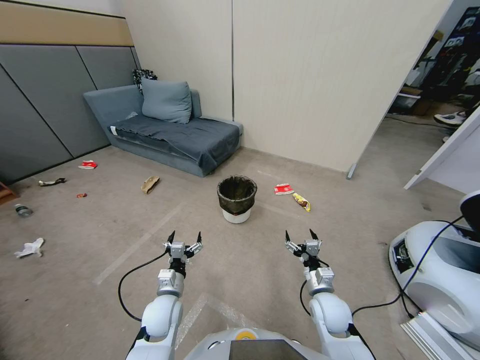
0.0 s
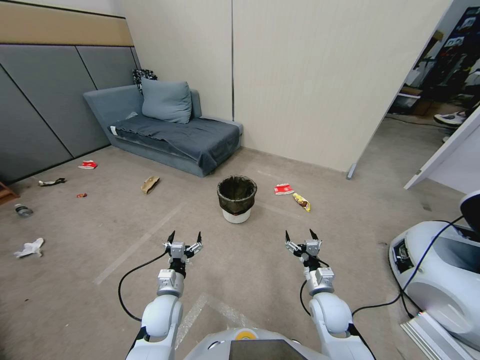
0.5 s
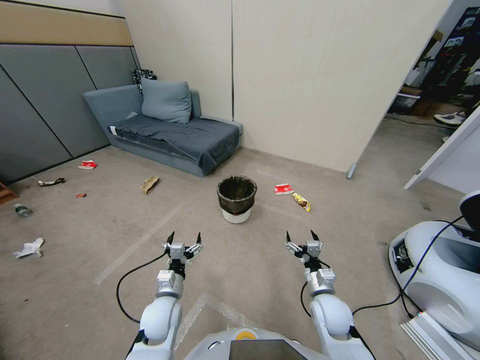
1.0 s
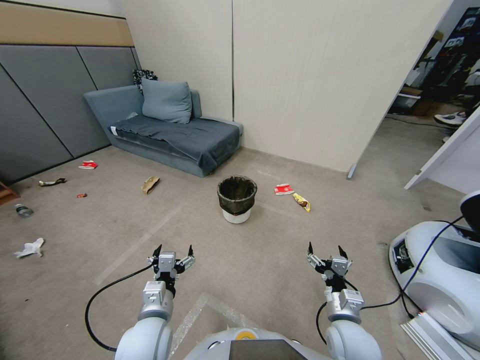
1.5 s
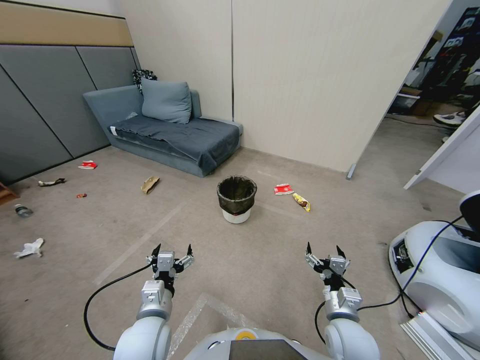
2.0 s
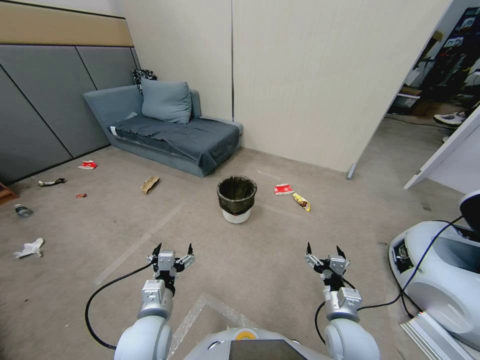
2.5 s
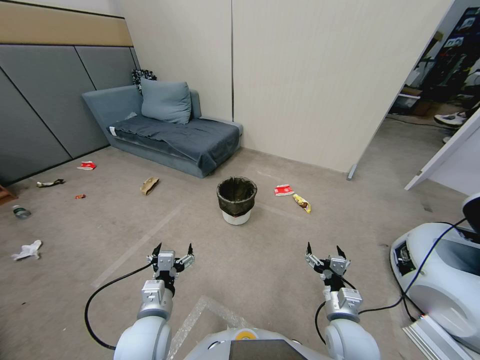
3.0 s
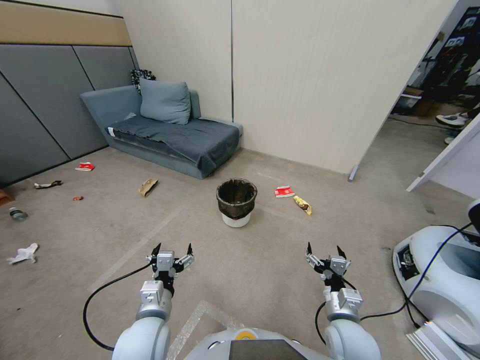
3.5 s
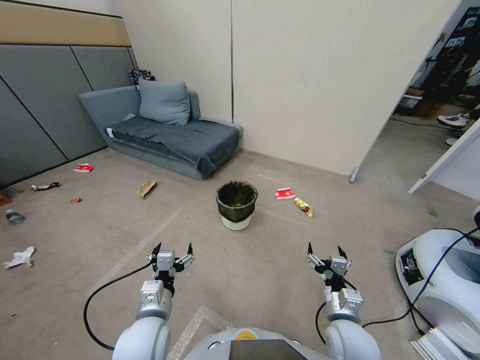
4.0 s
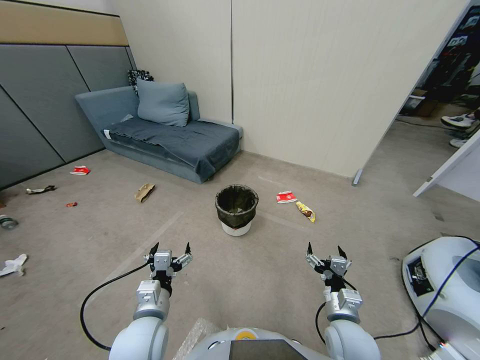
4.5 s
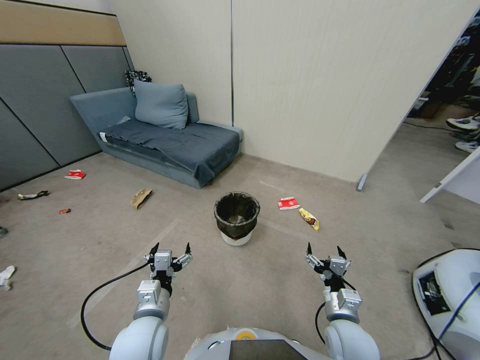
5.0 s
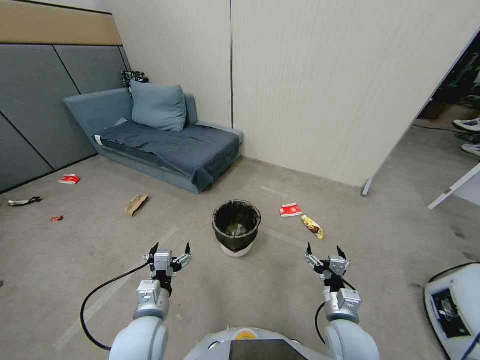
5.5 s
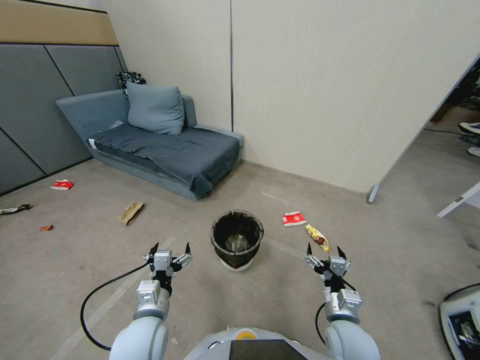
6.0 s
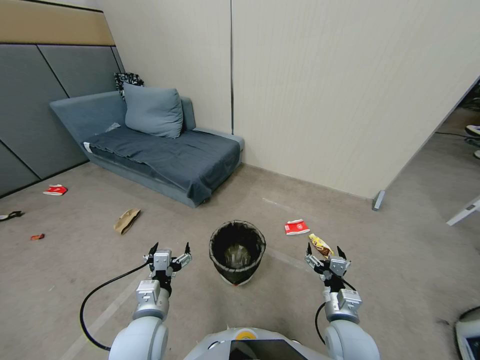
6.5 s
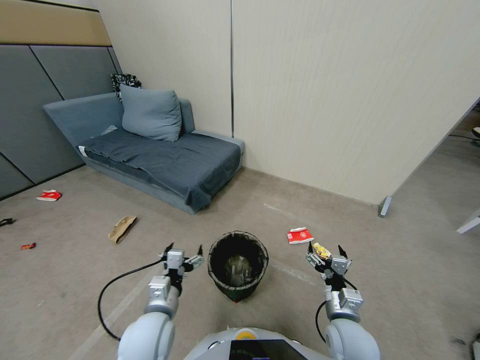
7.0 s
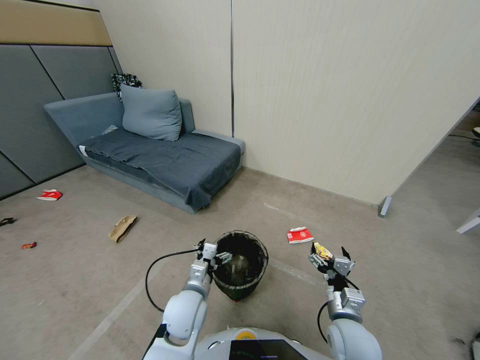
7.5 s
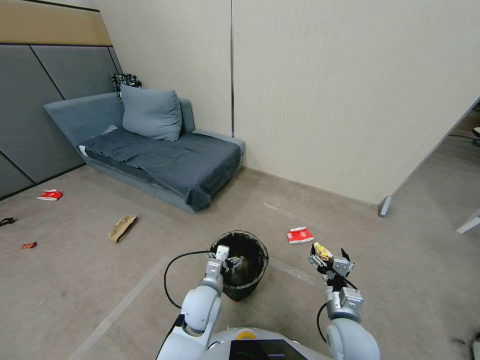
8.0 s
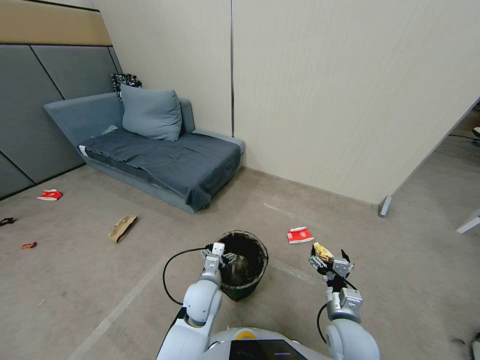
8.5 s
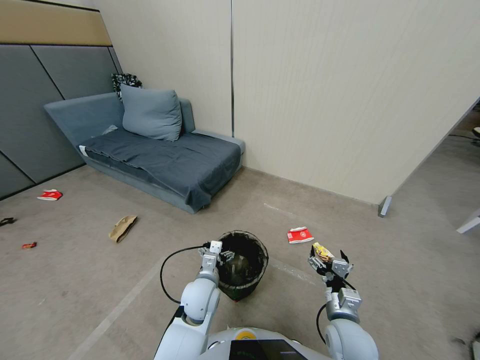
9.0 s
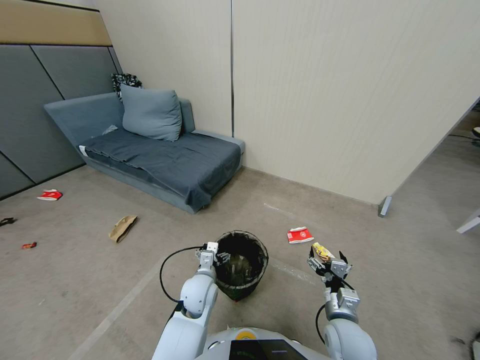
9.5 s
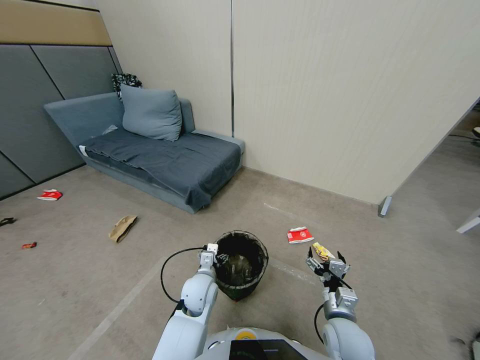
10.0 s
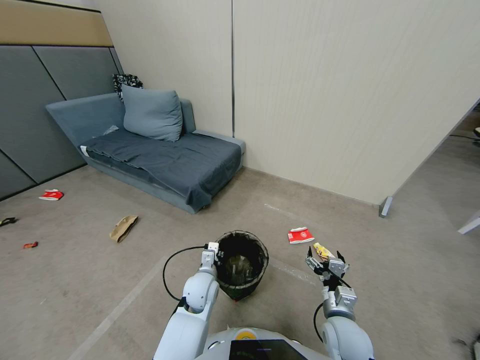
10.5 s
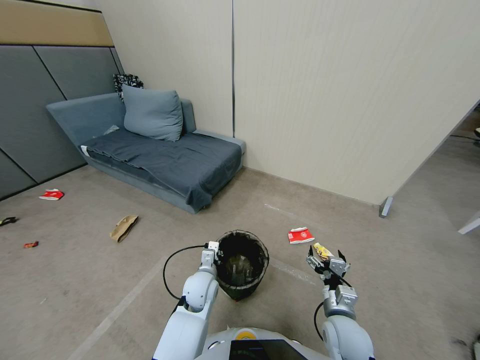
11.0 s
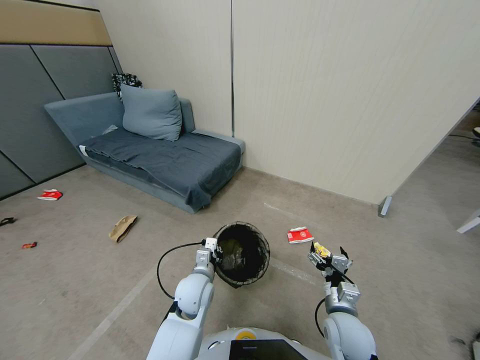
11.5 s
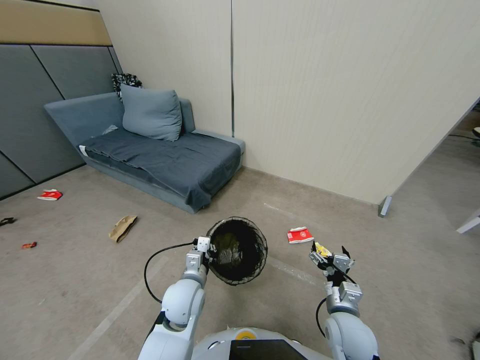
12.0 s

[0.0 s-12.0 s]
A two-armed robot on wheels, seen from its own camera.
Task of the whole recording: Pick up the trash bin, then pick up the garbage from the floor and place it into the trash bin.
2.0 to 4.0 s: The two grippers keep their place.
6.0 to 8.0 s: The left gripper shifts some 15 cm to the right, forward and downward.
8.0 to 10.0 s: The grippers stay close to where they were, moving slightly.
10.0 to 12.0 s: The left gripper travels upward by roughly 5 cm, and closes.

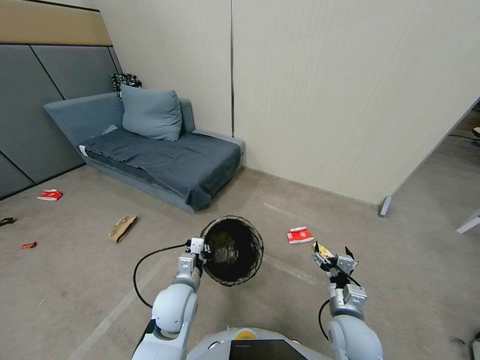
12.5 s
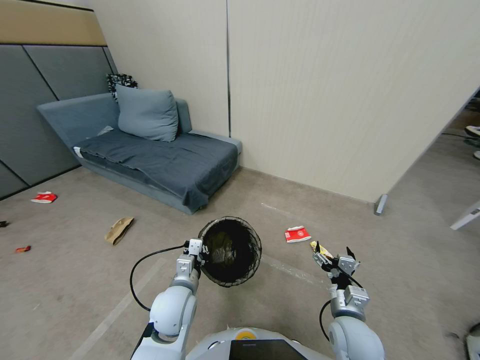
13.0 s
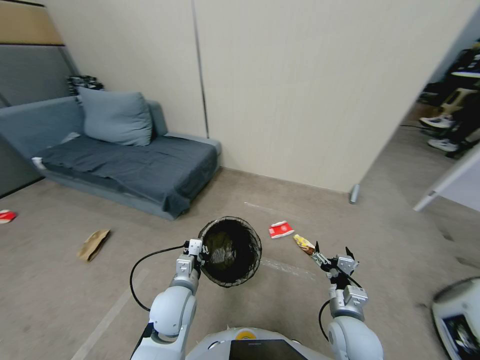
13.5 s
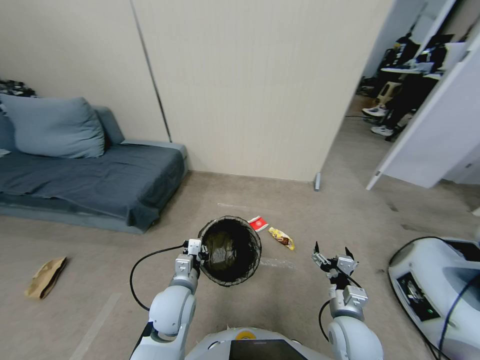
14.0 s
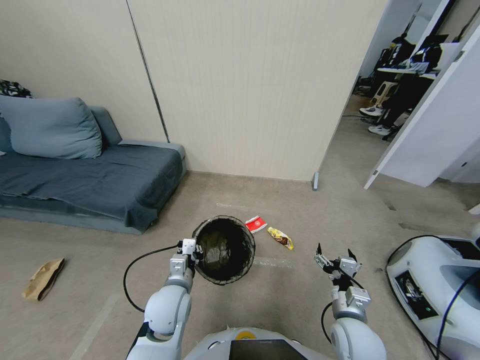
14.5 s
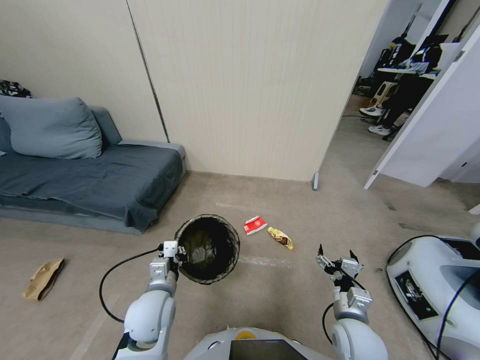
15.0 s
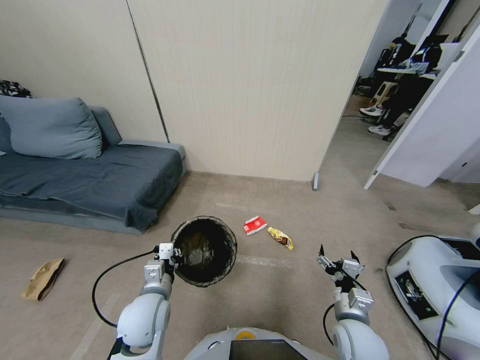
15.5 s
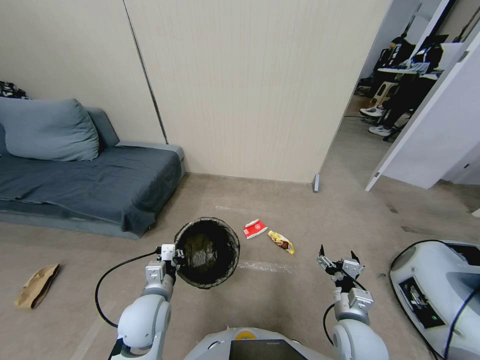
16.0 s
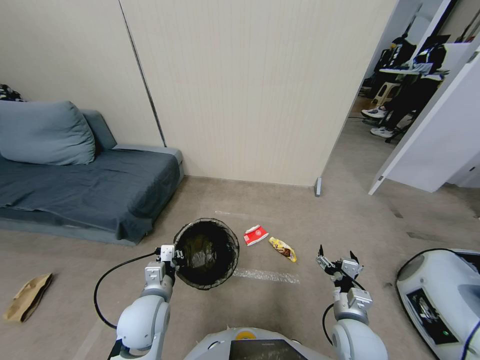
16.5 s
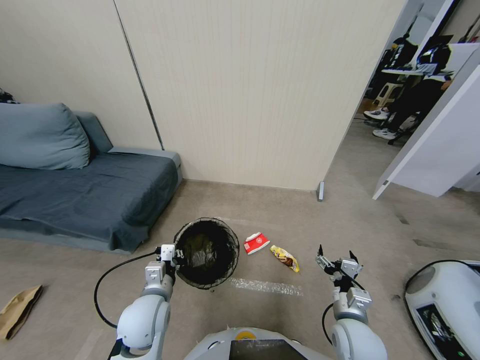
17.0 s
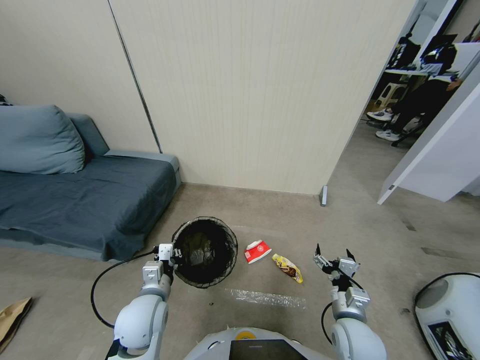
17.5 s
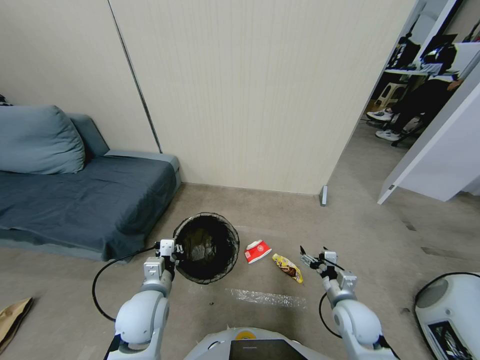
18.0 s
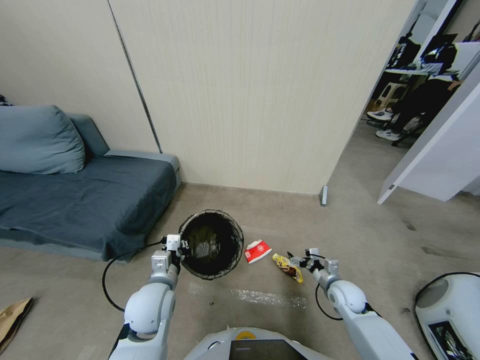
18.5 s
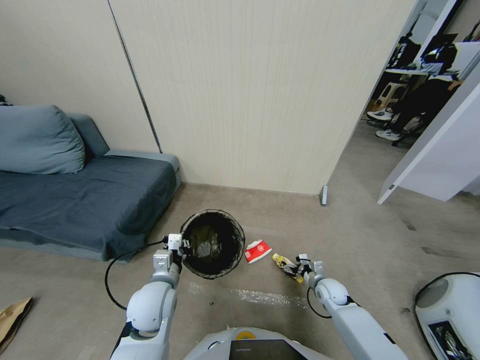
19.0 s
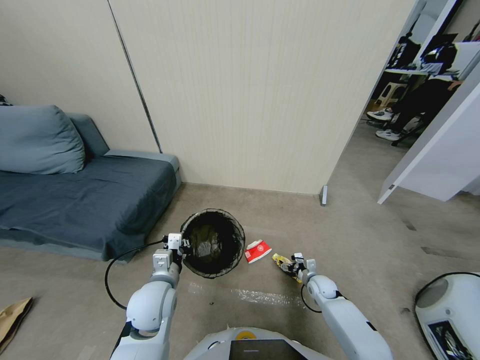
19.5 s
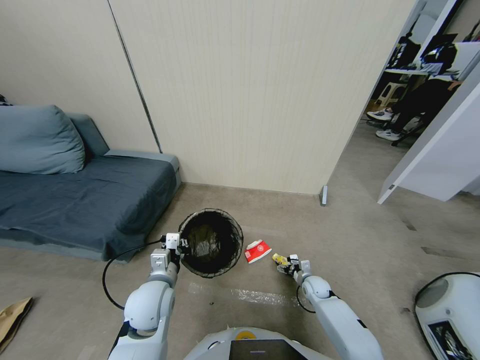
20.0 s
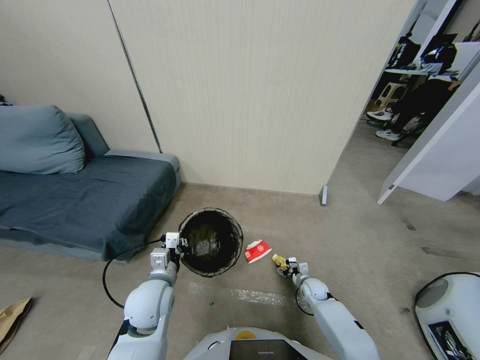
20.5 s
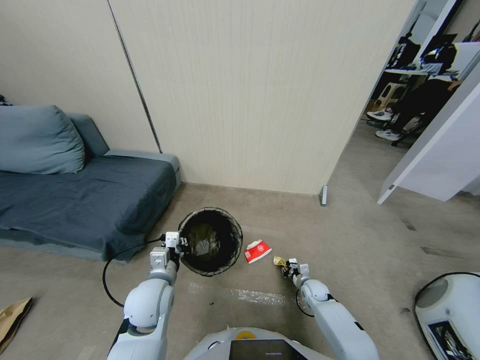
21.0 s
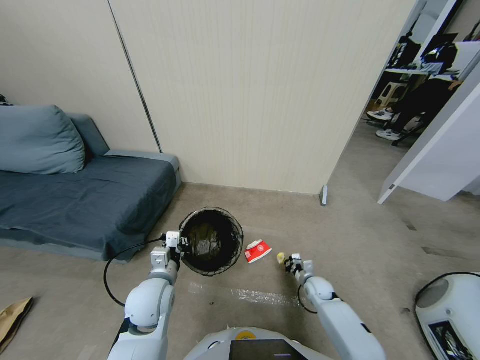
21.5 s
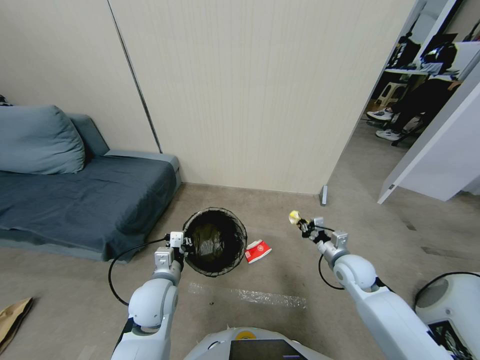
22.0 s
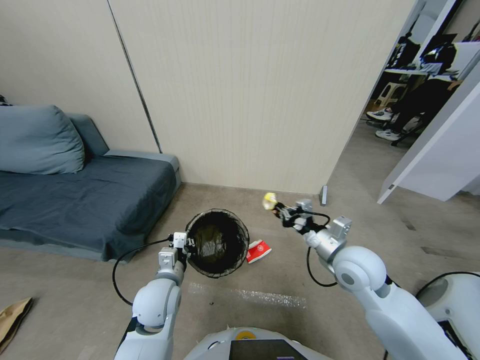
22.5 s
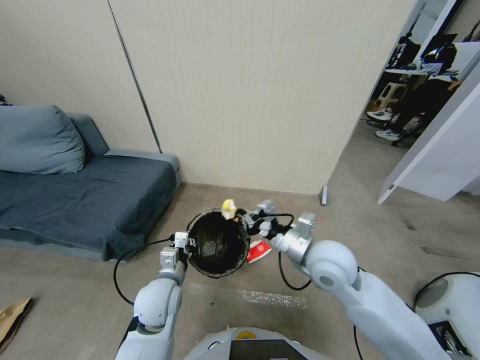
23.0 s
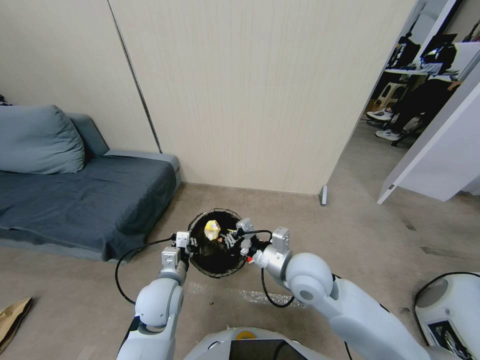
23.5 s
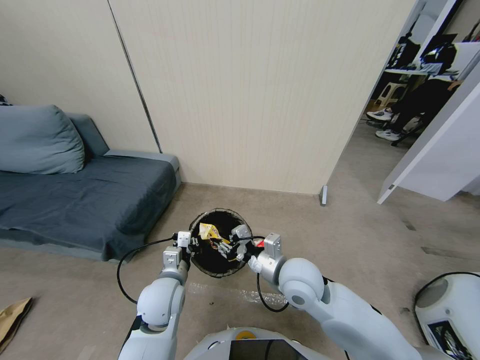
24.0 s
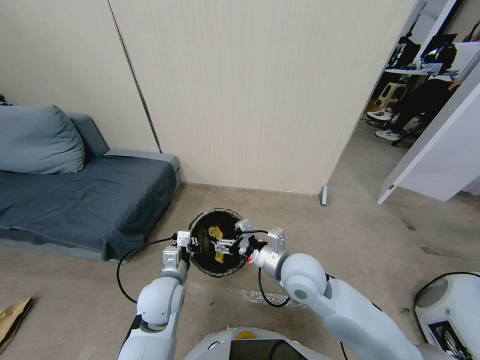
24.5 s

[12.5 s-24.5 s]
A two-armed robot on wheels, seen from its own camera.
Task of the whole recording: Pick up the trash bin, then pick up the garbage from the floor and place it into the trash bin.
14.5 to 16.5 s: The grippers move only a little.
16.5 to 18.5 s: The right gripper moves forward, downward and to the right, approximately 20 cm.
18.5 to 20.5 s: The right gripper moves downward, roughly 10 cm.
20.5 to 22.5 s: The right gripper goes about 35 cm upward, and closes.
22.5 to 24.5 s: The right gripper goes about 10 cm to the left, and opens its fingers.

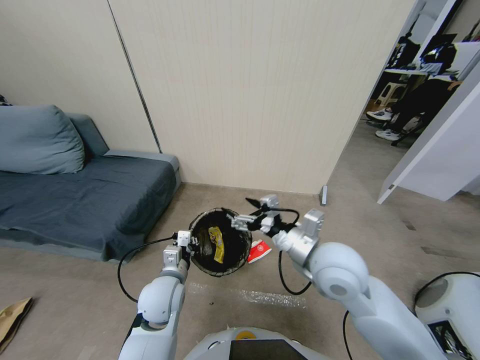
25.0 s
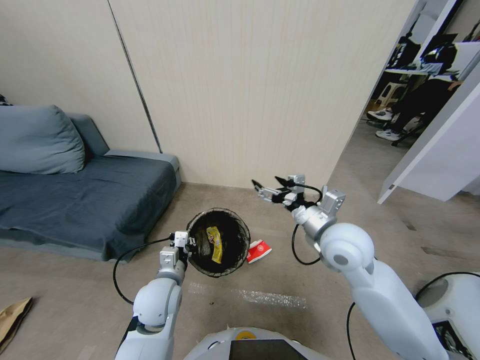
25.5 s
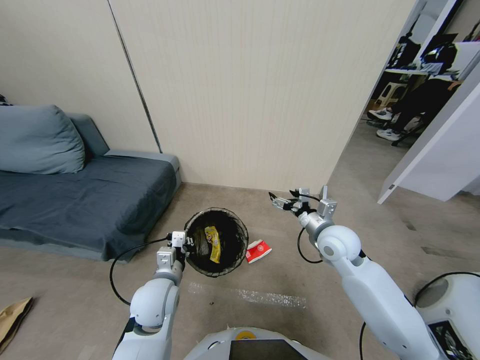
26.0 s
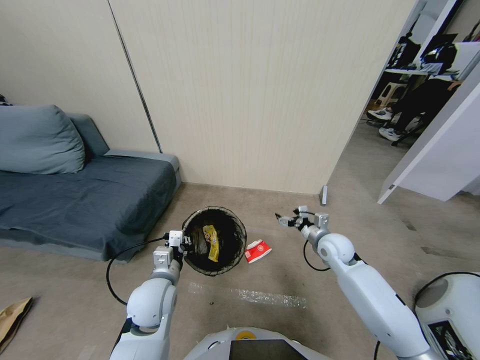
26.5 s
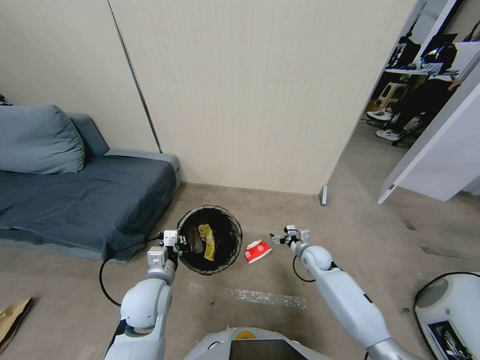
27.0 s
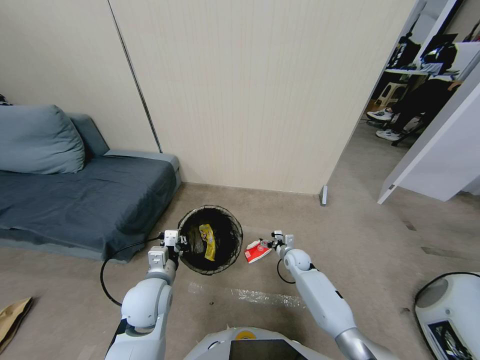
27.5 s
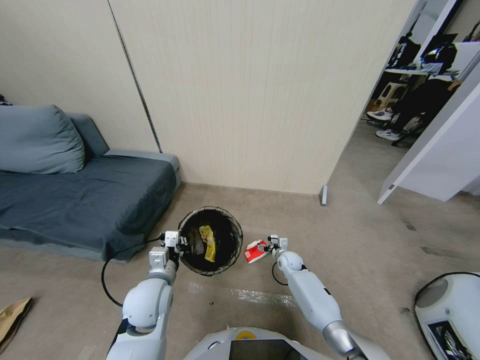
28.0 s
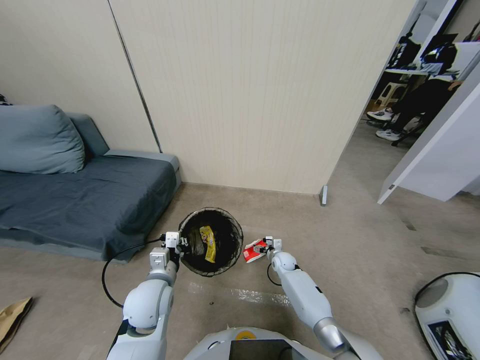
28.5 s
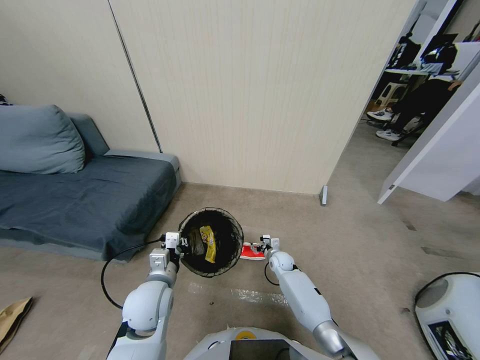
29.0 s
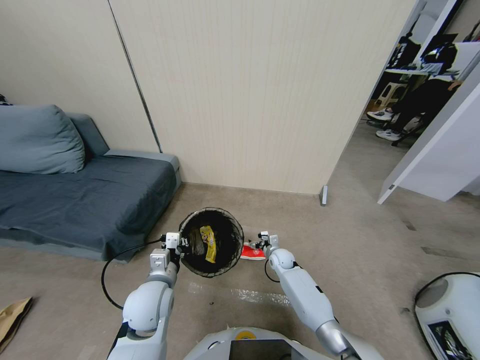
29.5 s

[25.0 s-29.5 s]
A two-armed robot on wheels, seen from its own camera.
Task of the whole recording: Pick up the trash bin, then pick up the garbage from the floor and place it into the trash bin.
25.0 to 27.0 s: The right gripper is displaced downward and forward by roughly 30 cm.
27.0 to 29.5 s: The right gripper shifts about 15 cm to the left and downward.
